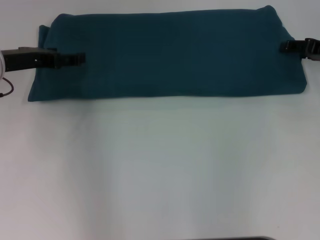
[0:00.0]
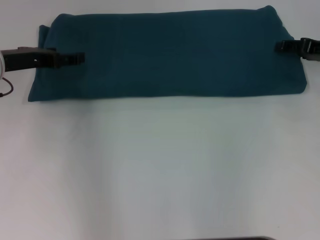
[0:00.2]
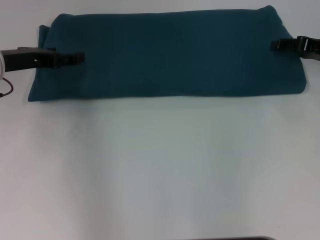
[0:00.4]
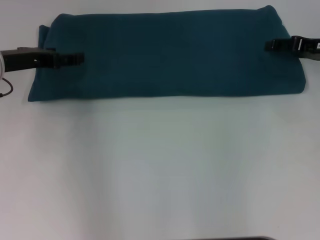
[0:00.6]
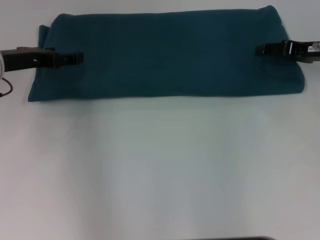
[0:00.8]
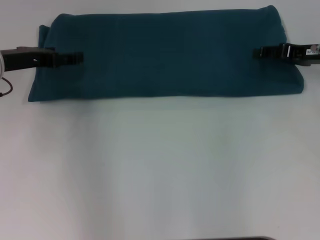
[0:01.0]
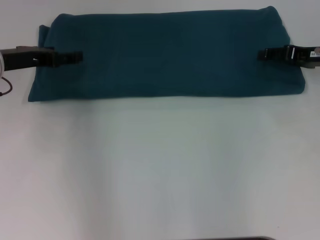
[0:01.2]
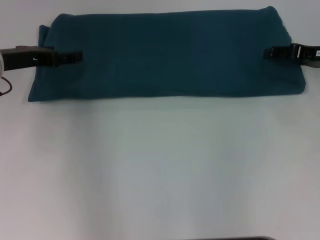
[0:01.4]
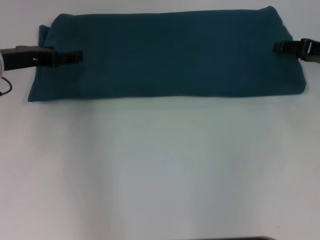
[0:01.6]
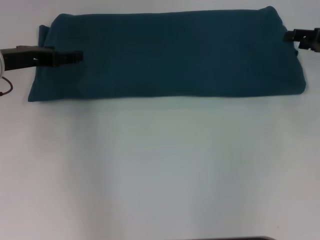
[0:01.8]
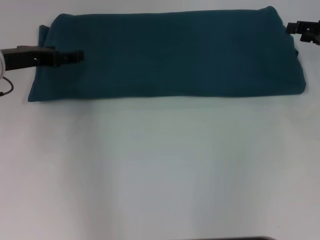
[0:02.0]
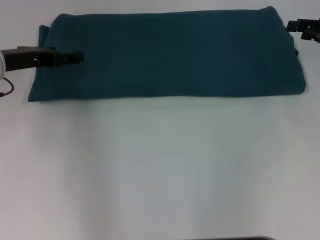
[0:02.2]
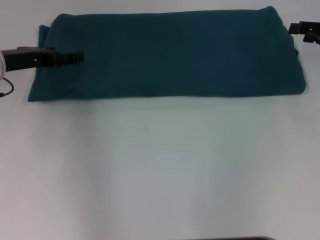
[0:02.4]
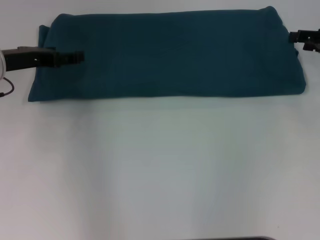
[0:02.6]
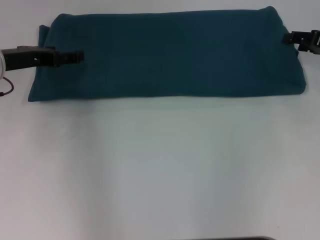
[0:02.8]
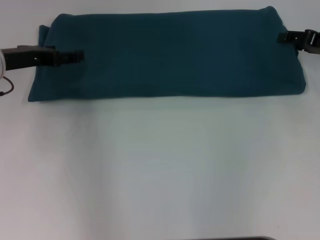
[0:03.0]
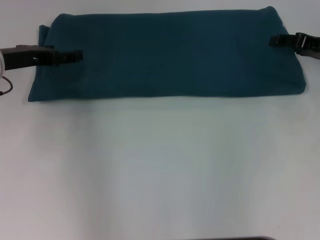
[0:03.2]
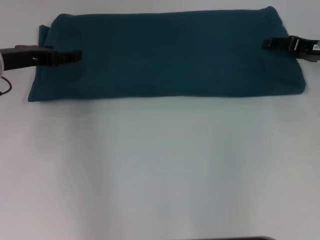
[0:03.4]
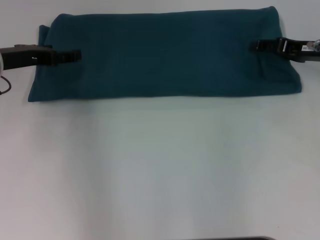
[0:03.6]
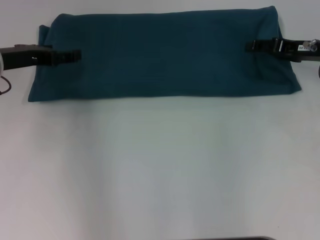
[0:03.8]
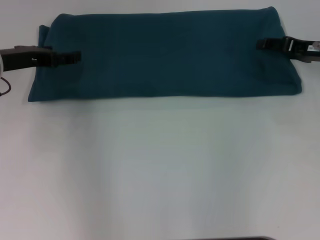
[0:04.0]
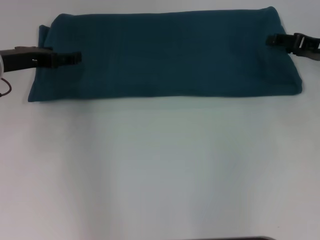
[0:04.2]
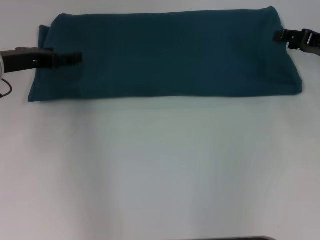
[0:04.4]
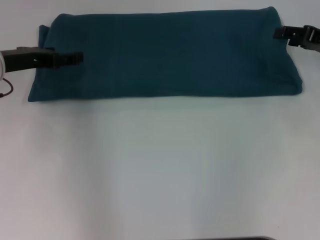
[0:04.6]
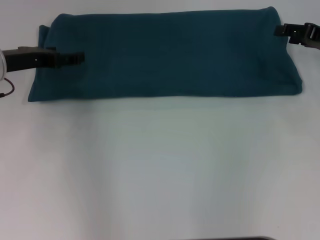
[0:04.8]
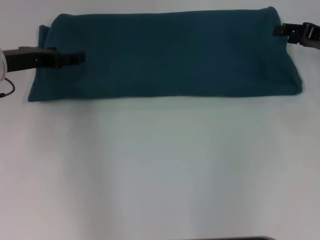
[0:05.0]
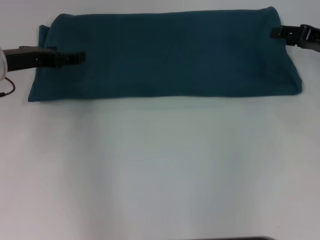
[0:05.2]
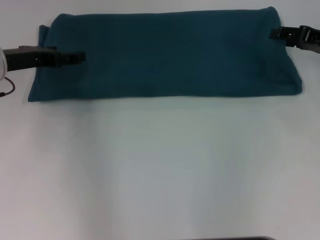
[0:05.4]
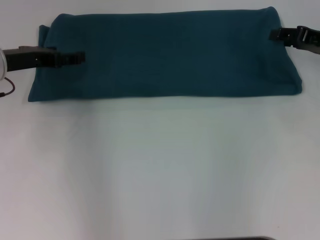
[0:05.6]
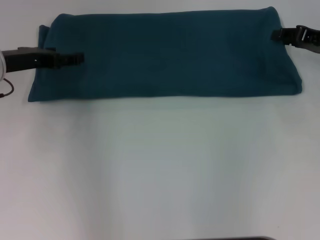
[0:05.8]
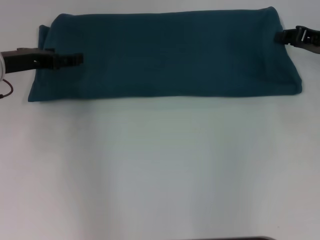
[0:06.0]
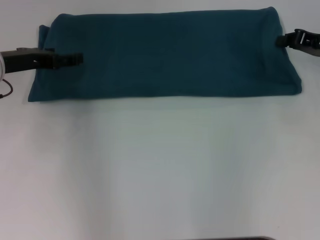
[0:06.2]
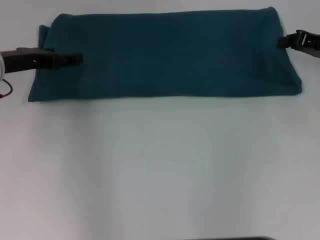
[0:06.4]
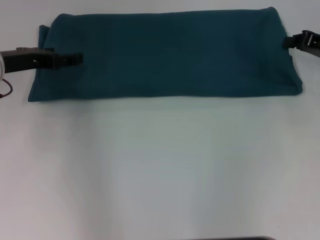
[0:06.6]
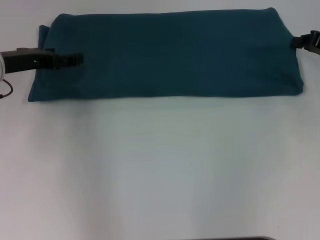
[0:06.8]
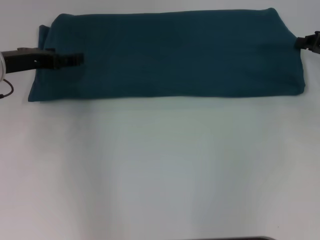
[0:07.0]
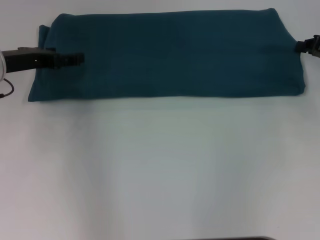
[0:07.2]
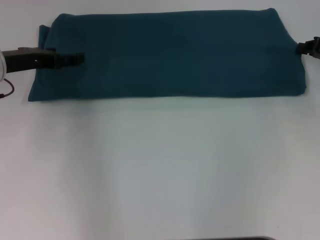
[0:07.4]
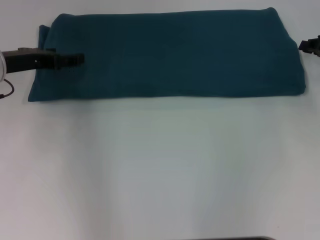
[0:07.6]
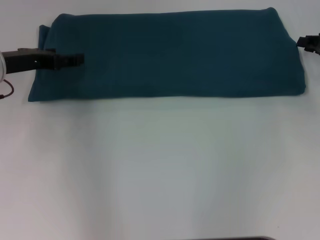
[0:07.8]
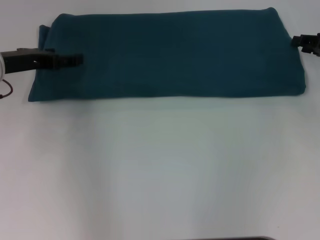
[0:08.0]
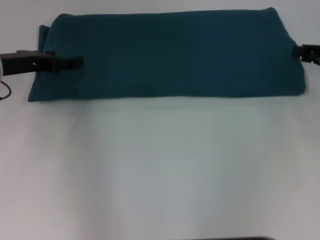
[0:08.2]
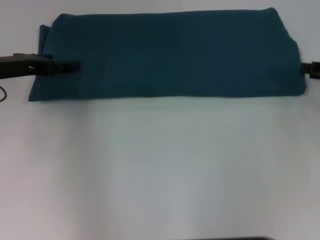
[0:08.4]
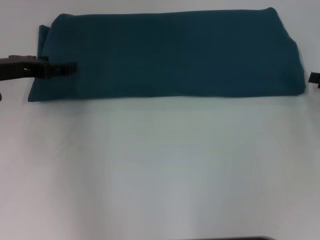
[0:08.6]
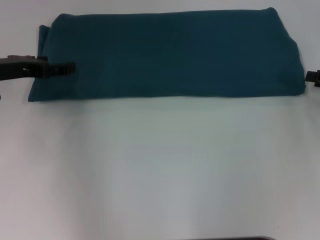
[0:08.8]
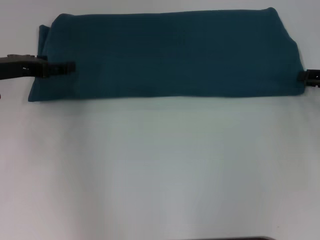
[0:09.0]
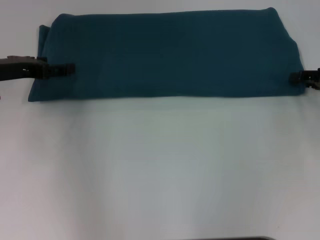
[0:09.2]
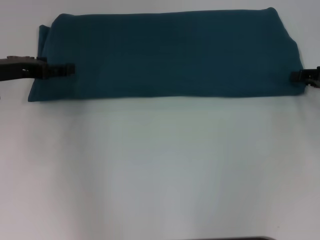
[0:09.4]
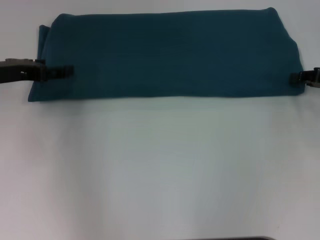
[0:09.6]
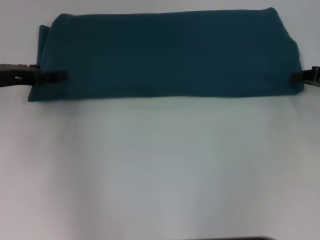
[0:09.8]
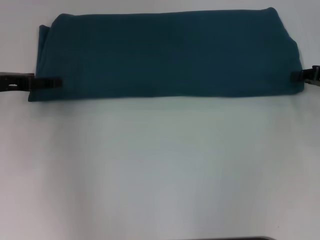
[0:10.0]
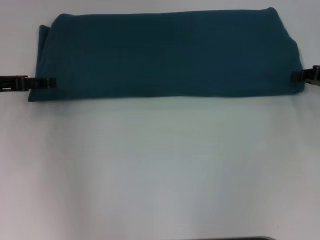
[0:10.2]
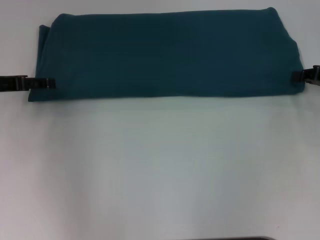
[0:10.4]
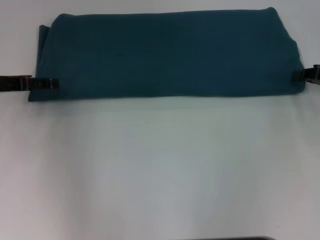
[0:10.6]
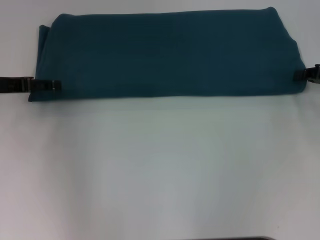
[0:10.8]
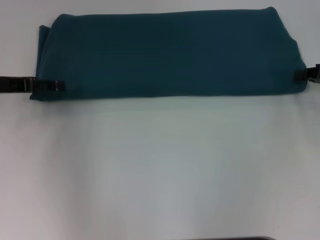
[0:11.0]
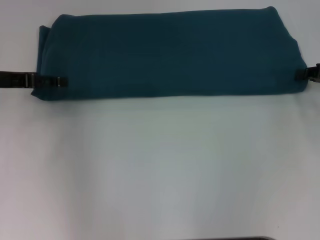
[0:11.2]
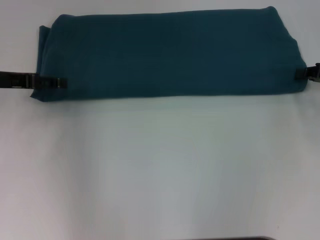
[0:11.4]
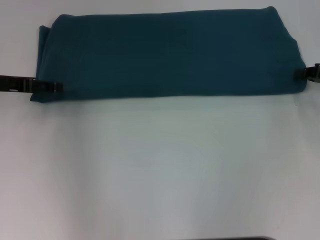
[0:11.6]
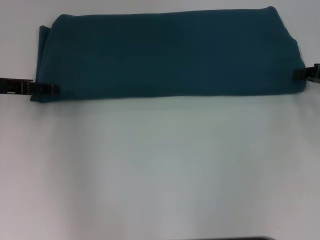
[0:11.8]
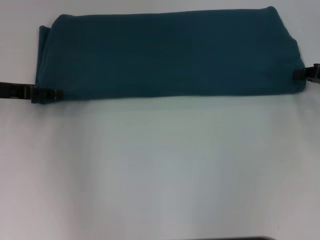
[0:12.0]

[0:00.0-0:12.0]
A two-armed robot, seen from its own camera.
0:01.6 to 0:04.4: There are only small adjustments of the grippers.
0:06.0 to 0:07.6: The grippers make only small movements.
0:07.6 to 0:09.0: The right gripper opens its fingers.
0:10.4 to 0:12.0: There are only small adjustments of the grippers.

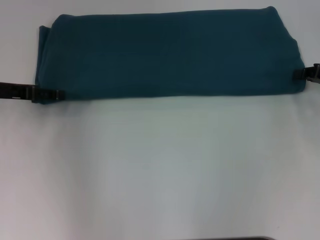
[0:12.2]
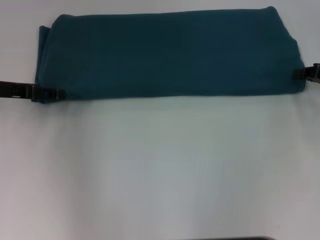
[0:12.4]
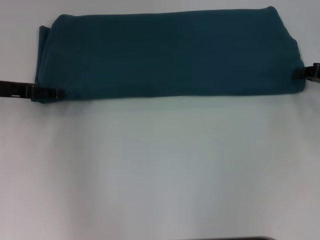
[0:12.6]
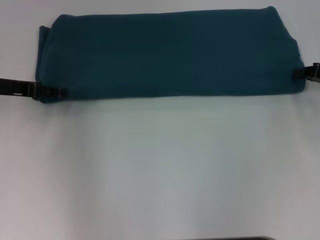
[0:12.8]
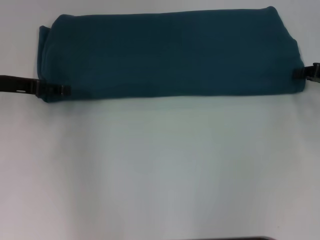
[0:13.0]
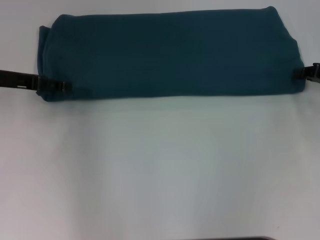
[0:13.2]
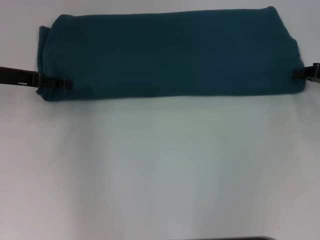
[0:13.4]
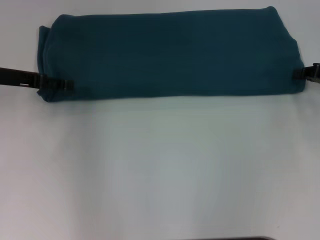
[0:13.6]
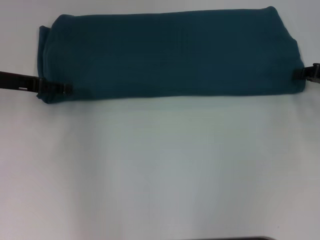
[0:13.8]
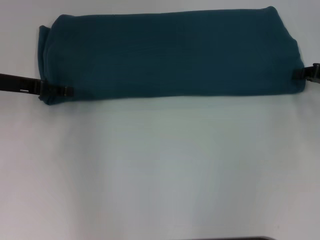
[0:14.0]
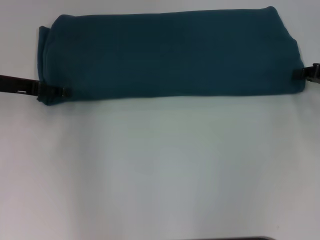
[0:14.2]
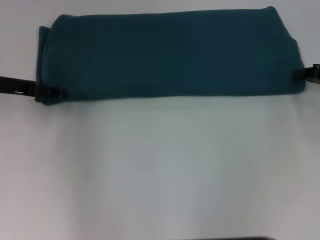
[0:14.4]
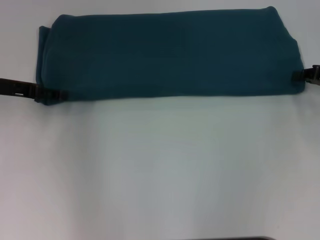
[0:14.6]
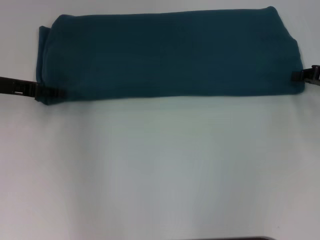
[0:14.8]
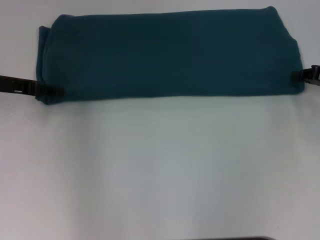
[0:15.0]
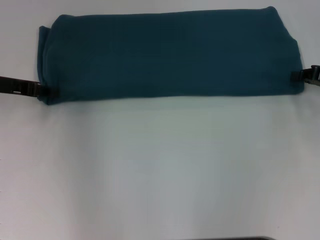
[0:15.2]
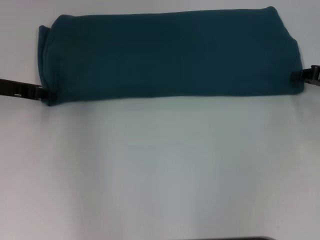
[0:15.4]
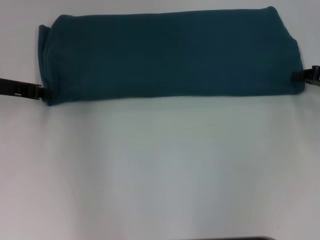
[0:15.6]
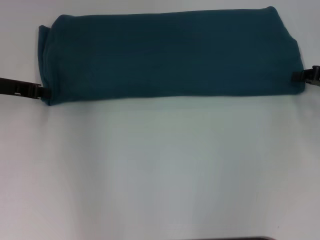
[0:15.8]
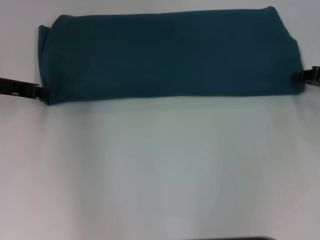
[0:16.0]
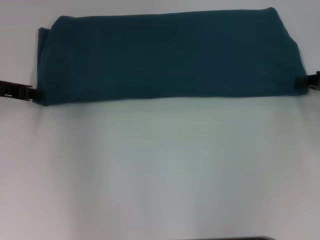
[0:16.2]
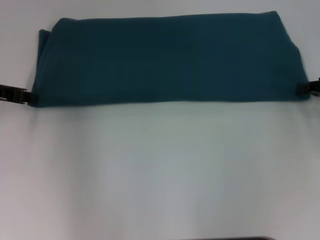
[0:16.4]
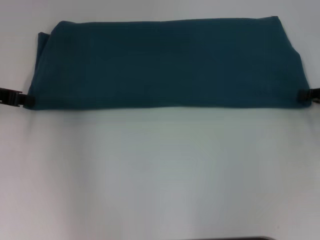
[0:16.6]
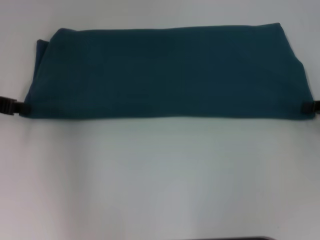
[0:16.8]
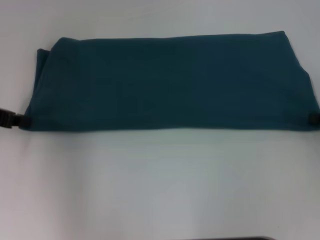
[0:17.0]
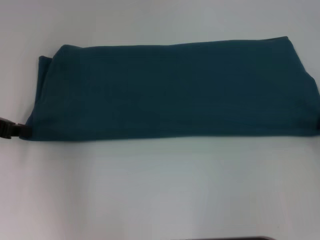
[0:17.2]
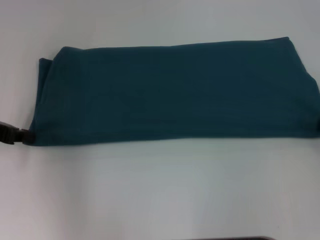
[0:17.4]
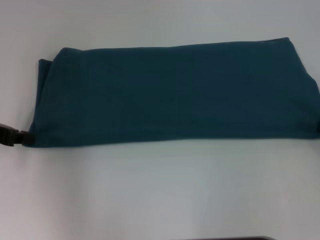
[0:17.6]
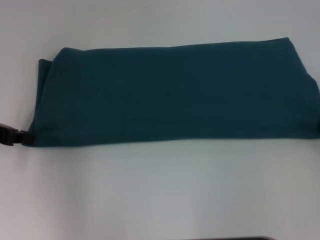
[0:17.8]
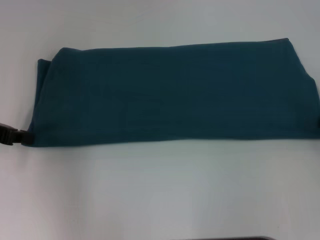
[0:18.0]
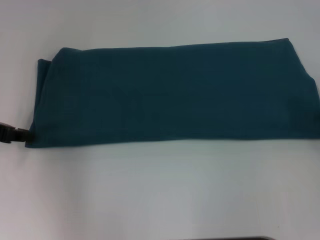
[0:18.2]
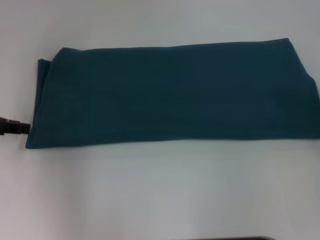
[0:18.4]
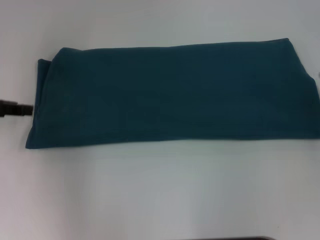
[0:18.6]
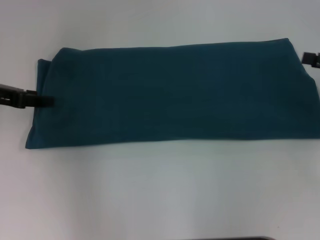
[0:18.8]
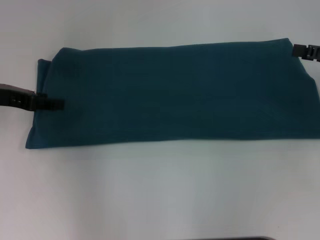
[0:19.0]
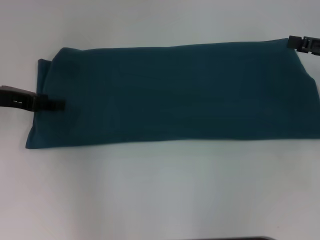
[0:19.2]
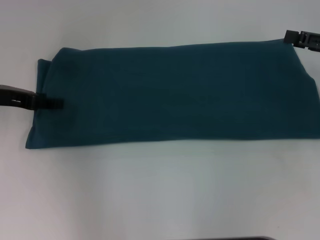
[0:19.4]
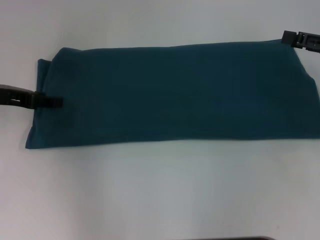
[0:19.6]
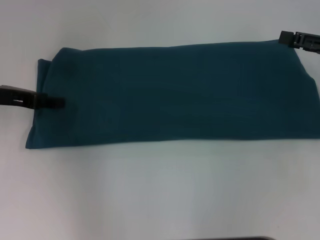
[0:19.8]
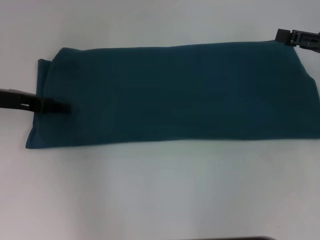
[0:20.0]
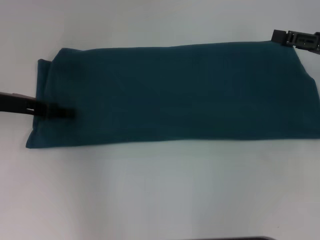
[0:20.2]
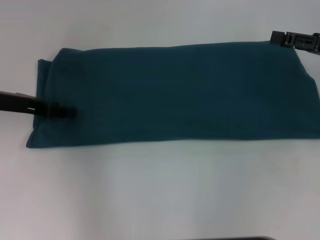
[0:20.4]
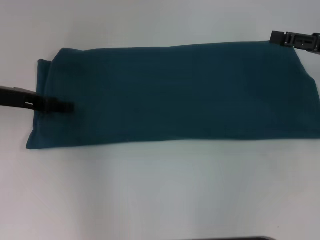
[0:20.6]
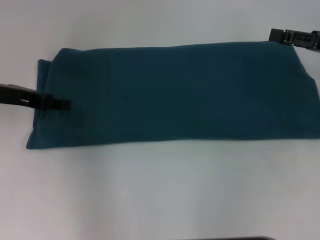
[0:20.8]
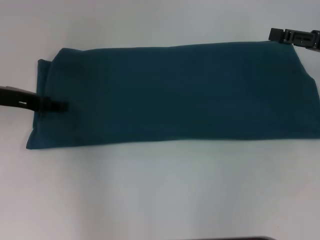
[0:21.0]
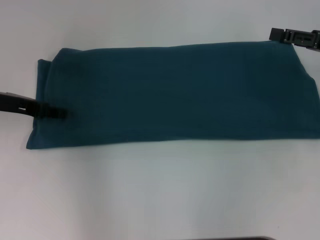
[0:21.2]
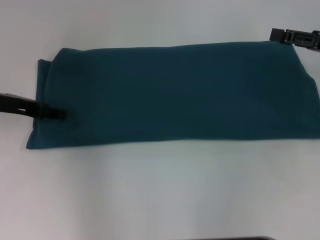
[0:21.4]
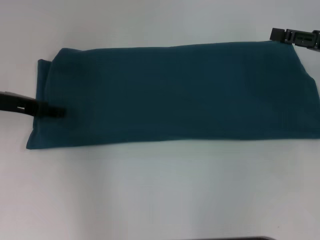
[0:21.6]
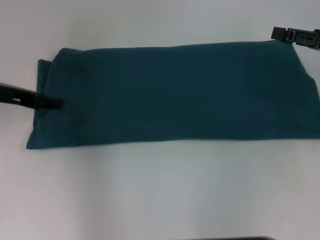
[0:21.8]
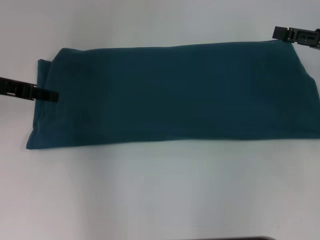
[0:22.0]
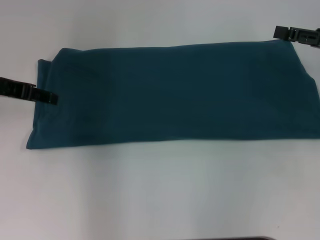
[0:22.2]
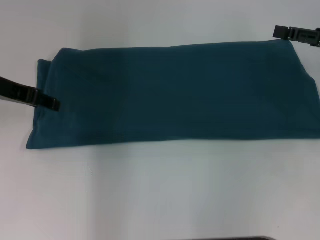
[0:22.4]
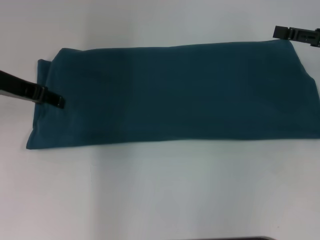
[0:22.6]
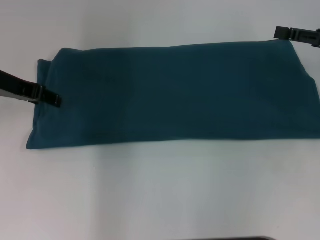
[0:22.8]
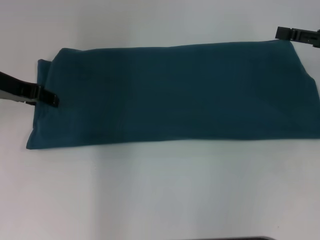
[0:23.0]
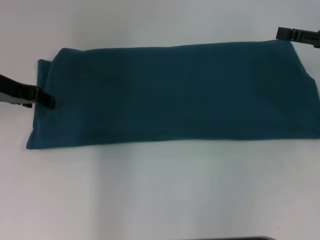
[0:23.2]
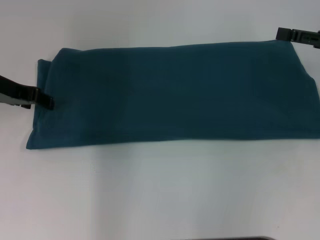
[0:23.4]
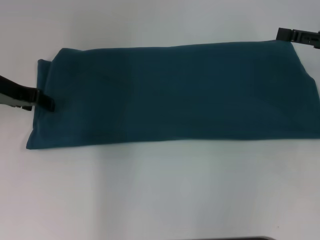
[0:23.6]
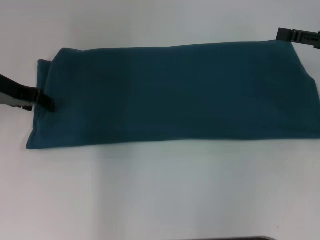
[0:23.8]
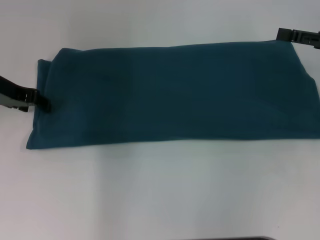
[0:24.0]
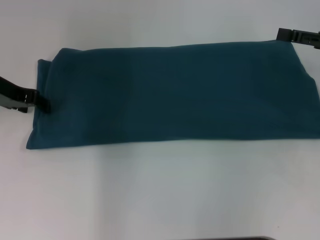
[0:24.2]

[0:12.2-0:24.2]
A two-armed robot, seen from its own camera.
Step, 0:12.2 to 0:18.2: Pull the clothes with your left hand.
Step, 0:12.2 to 0:18.2: Pull the clothes with your right hand.
0:12.2 to 0:13.8: There are only small adjustments of the grippers.
0:13.8 to 0:15.2: Both grippers stay about where they are.
0:15.2 to 0:16.6: The left gripper closes up.
0:16.6 to 0:18.2: The right gripper heads backward, covering some 5 cm.
0:18.2 to 0:19.8: The left gripper opens up. The right gripper goes approximately 10 cm forward and to the left, and opens.
0:19.8 to 0:21.2: The grippers stay close to where they were, moving slightly.
0:21.2 to 0:22.6: The left gripper shifts by about 5 cm.
0:22.6 to 0:24.2: The grippers move only a little.
